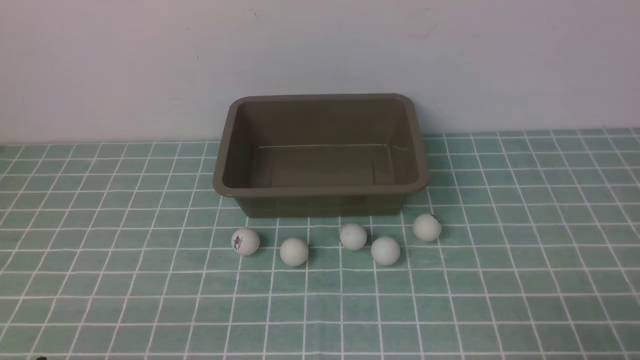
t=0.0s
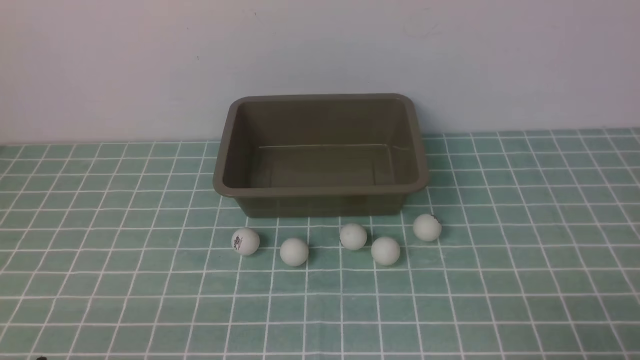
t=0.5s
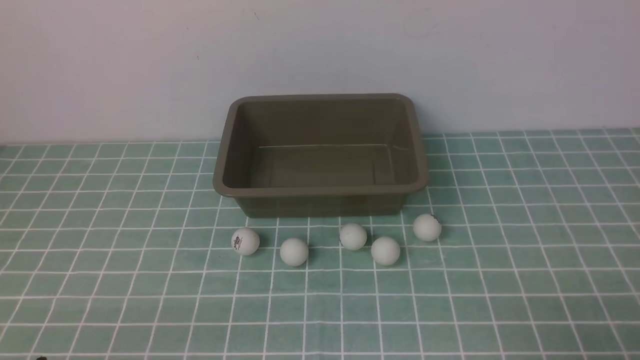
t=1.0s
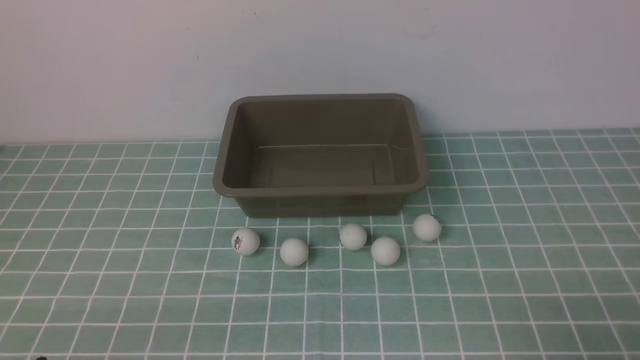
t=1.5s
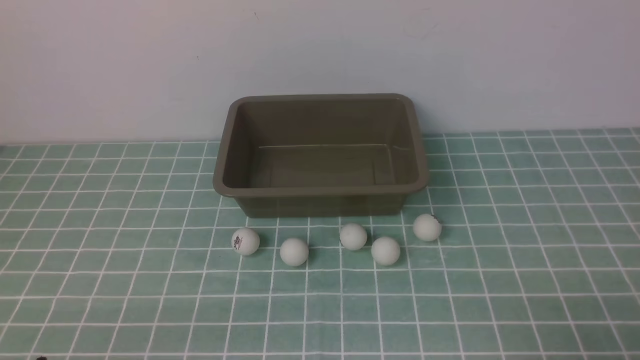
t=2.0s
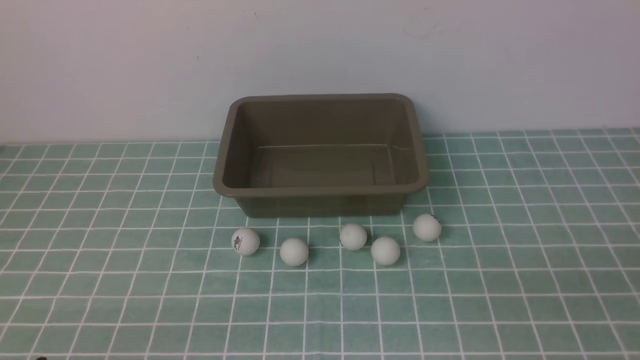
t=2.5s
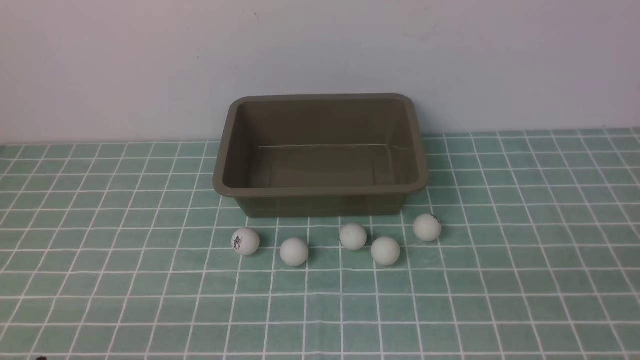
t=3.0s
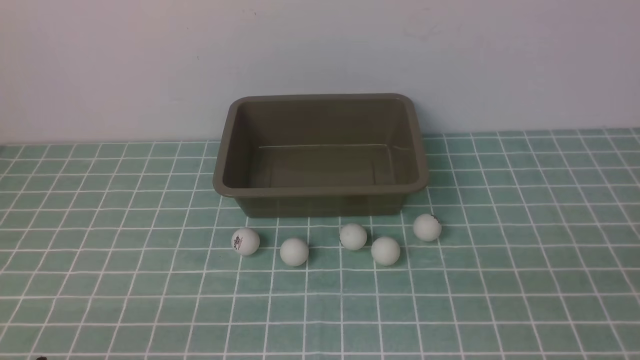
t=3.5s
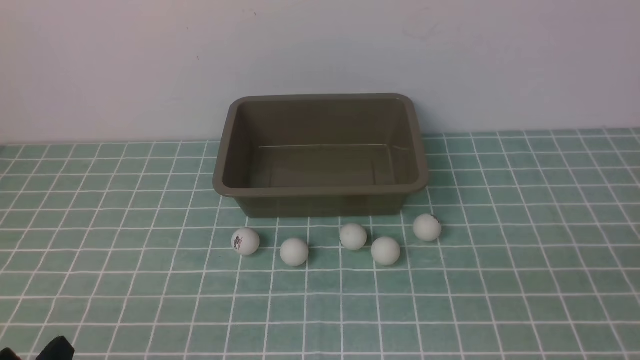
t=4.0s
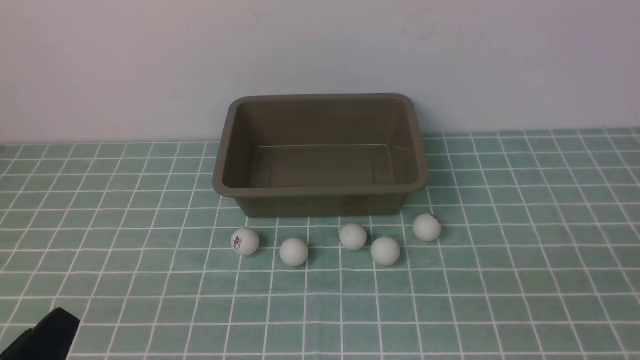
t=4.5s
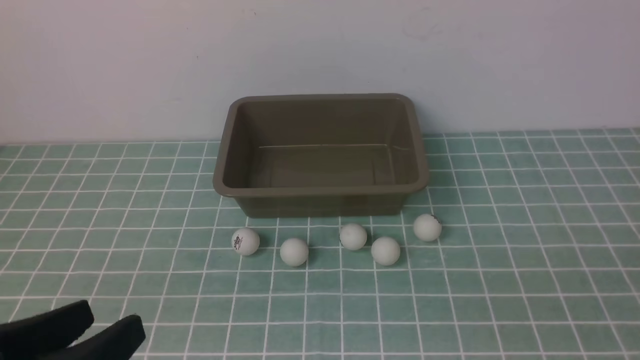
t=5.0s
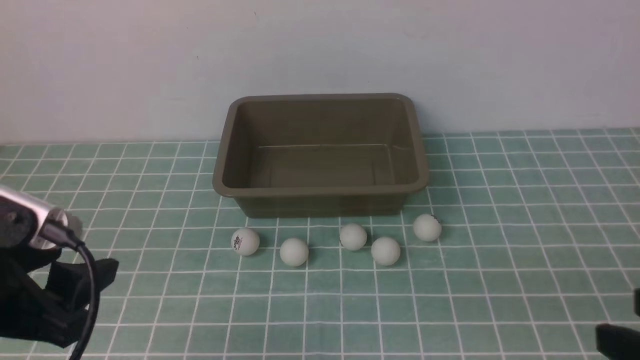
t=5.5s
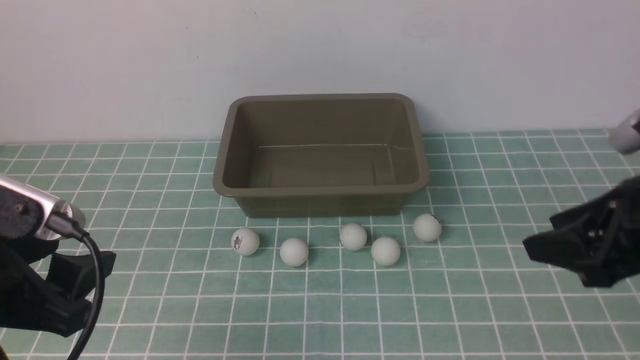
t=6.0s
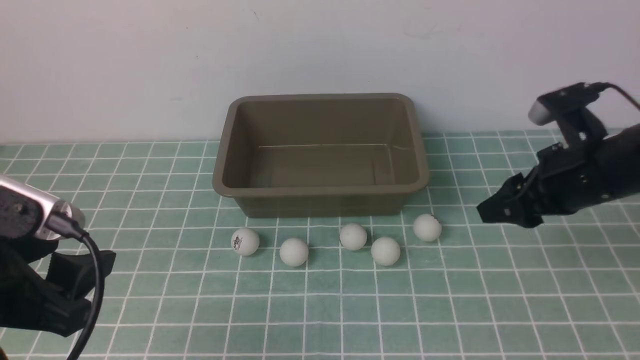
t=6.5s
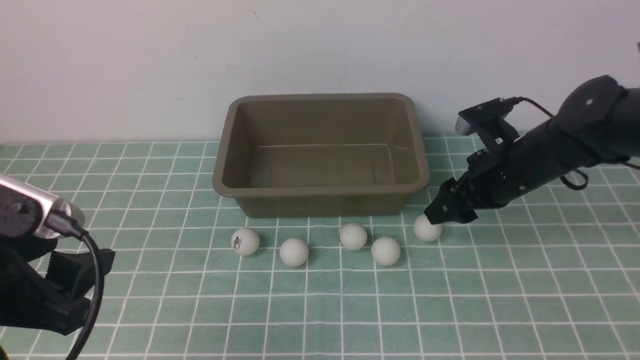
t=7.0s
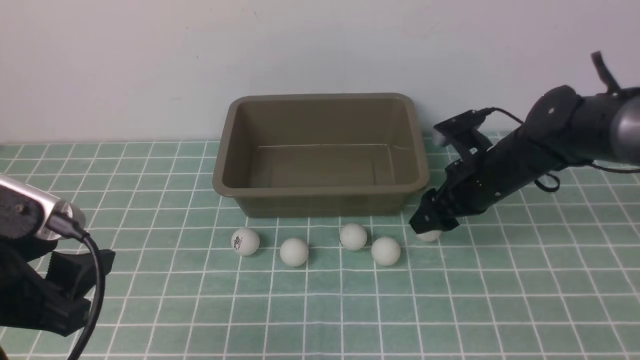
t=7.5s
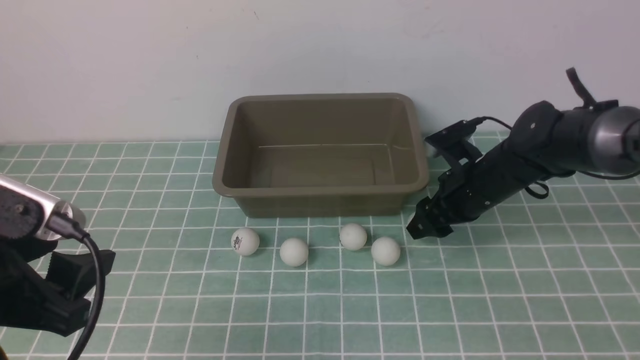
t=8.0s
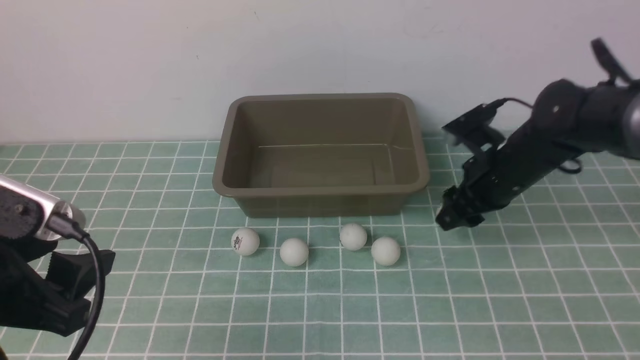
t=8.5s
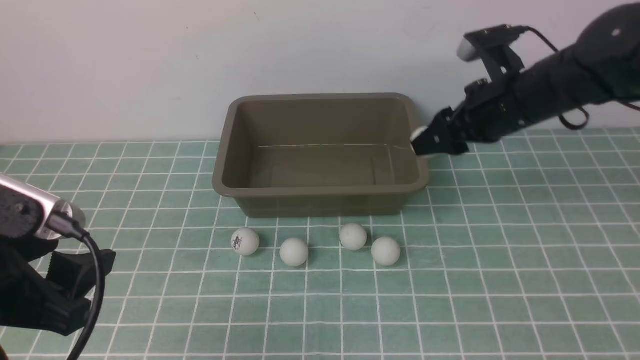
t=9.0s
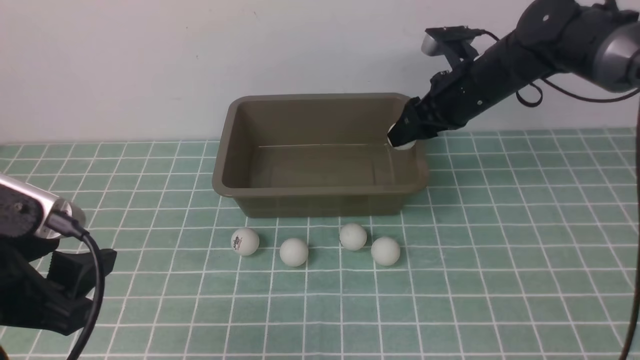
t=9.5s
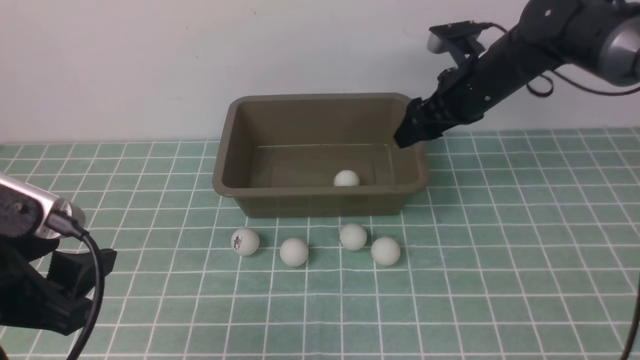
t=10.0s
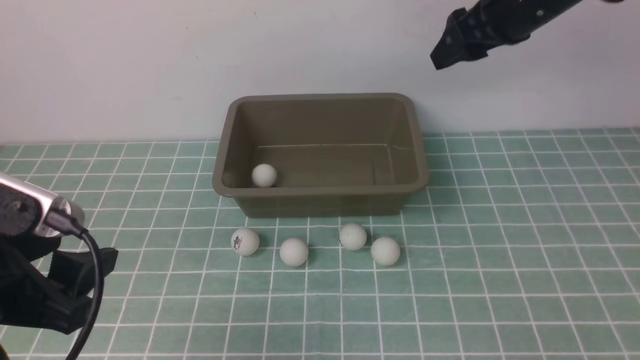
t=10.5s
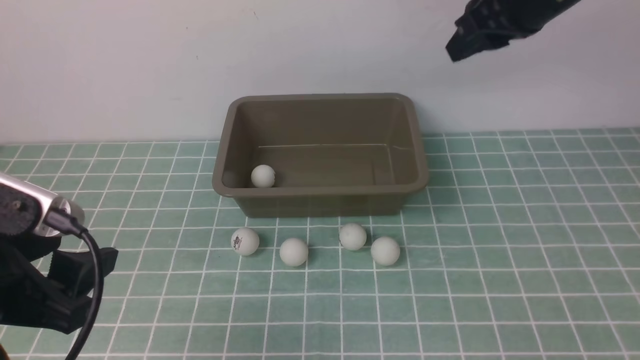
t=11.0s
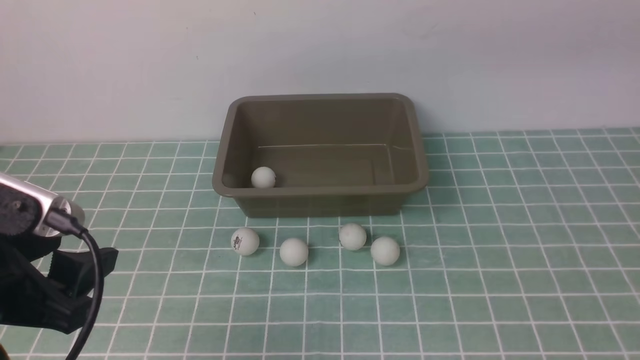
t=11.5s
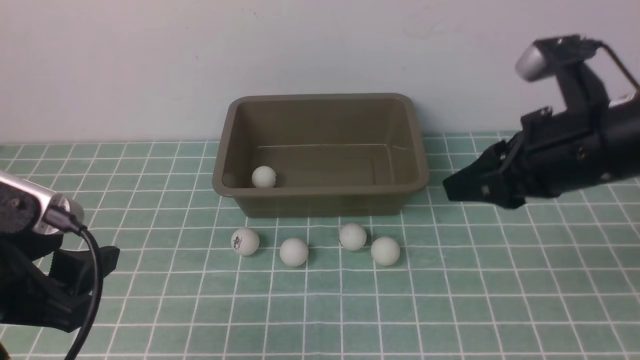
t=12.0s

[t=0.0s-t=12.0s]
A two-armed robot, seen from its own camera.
Step, t=0.0s to t=8.5s: use the right arm to clamp the table tennis ball closest to it.
Step, t=9.0s to t=9.5s: use the right arm to put the table tennis ball into the box.
t=0.0s to t=2.0s: Both grippers stay put.
t=4.0s to t=6.0s: The left gripper moves upward and forward, about 15 cm. The right gripper moves forward, some 20 cm.
t=6.0s to t=8.0s: The right gripper moves forward and downward, about 25 cm.
t=8.0s to t=10.0s: The right gripper moves upward, approximately 15 cm.
t=10.0s to t=12.0s: The right gripper shifts some 15 cm backward, and closes its fingers.

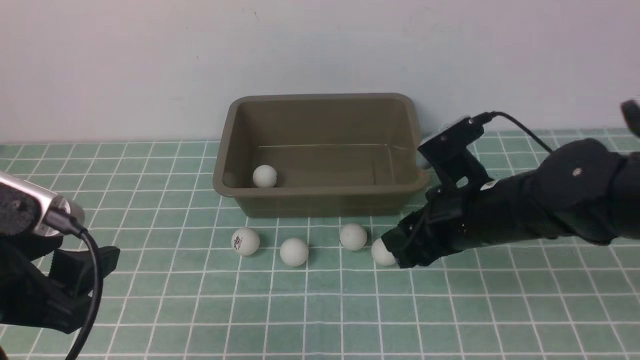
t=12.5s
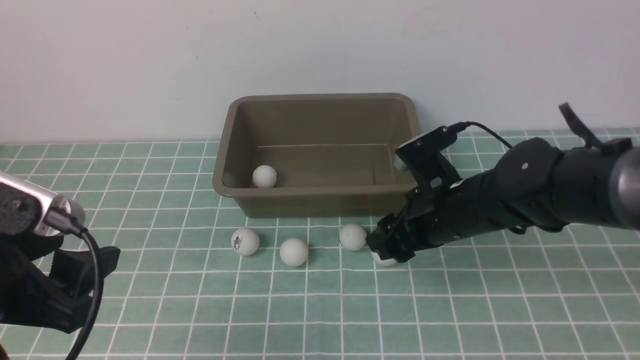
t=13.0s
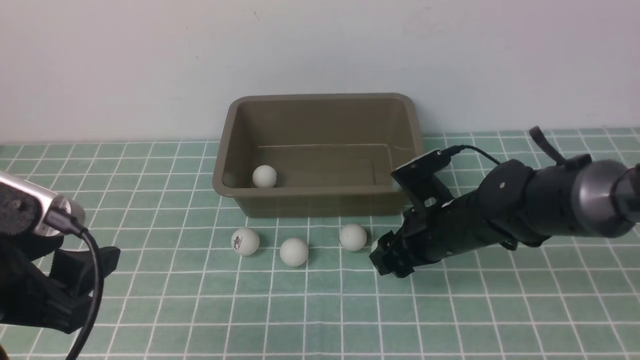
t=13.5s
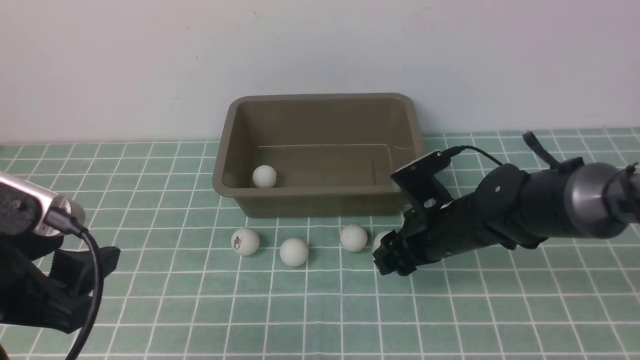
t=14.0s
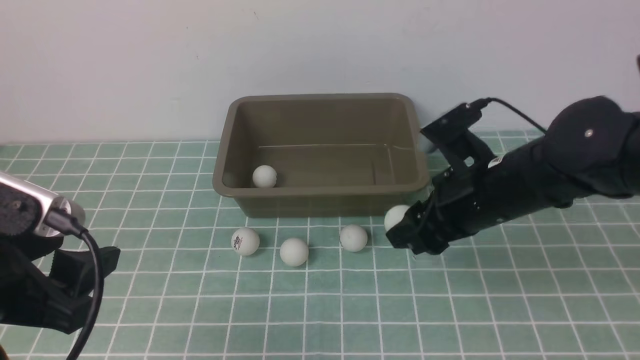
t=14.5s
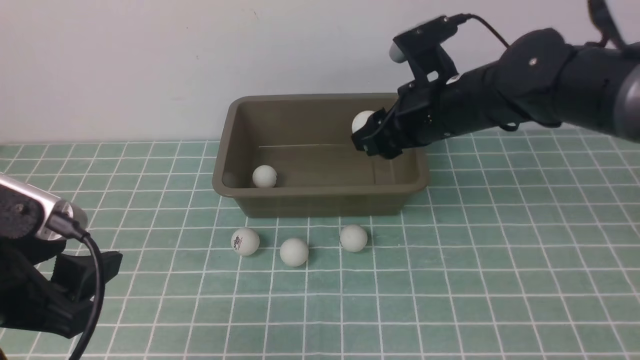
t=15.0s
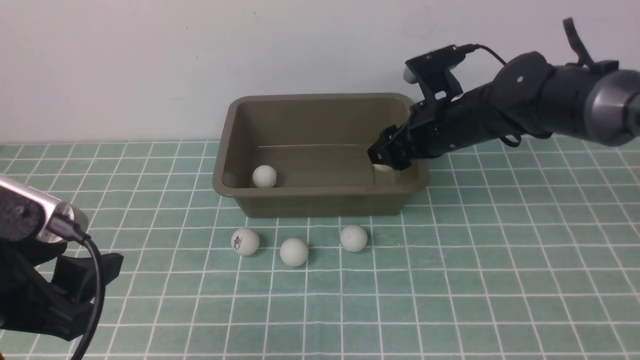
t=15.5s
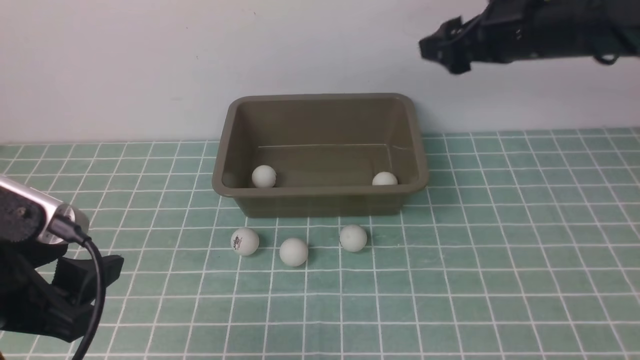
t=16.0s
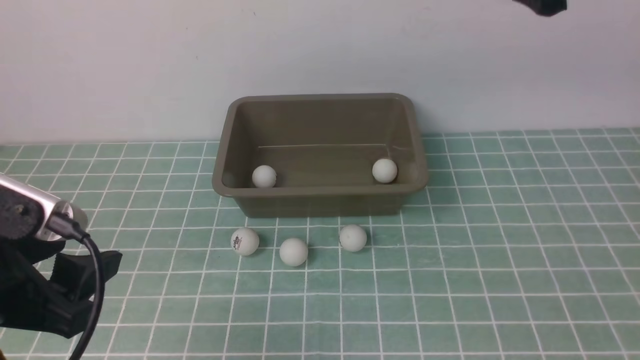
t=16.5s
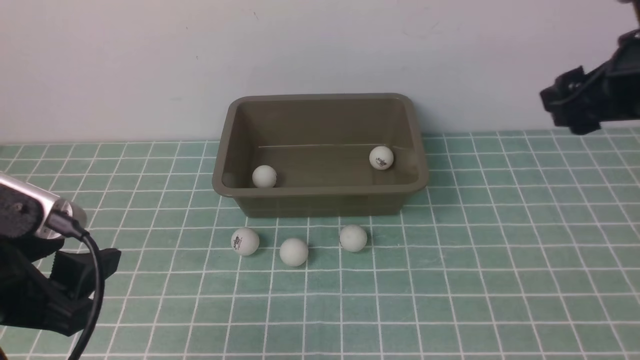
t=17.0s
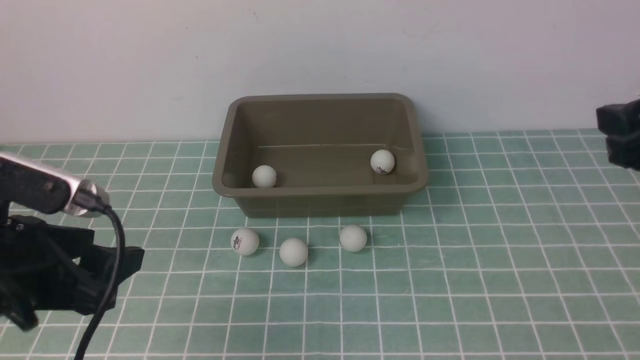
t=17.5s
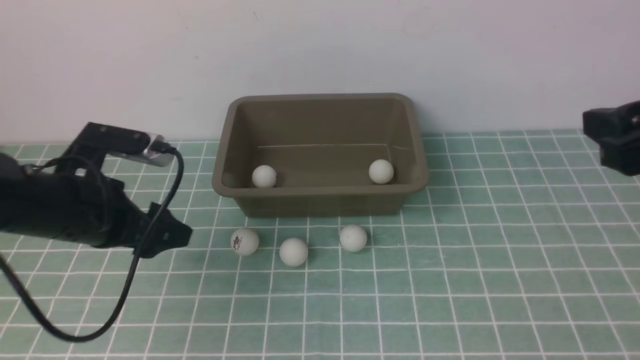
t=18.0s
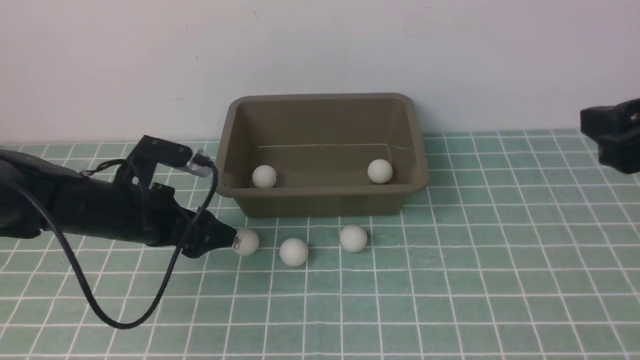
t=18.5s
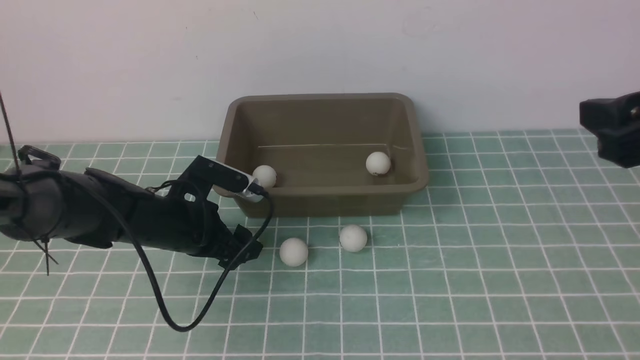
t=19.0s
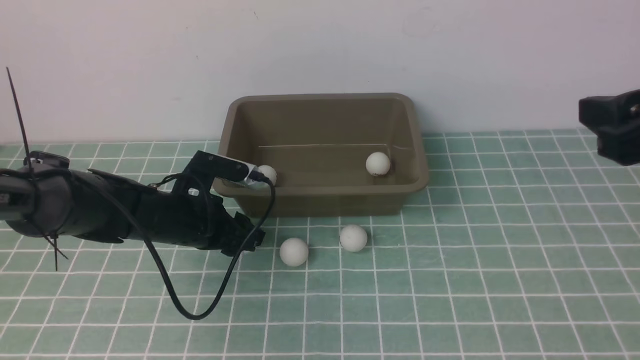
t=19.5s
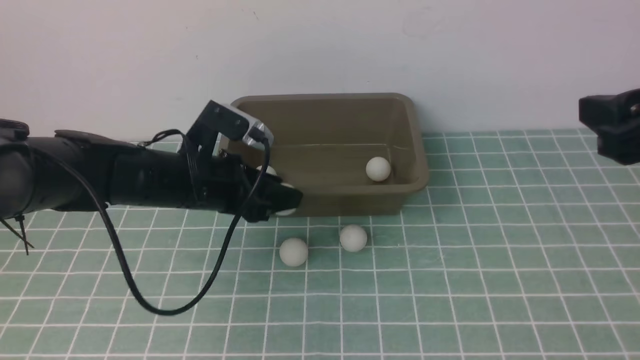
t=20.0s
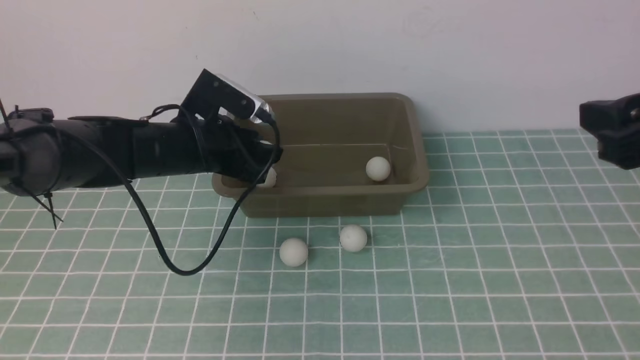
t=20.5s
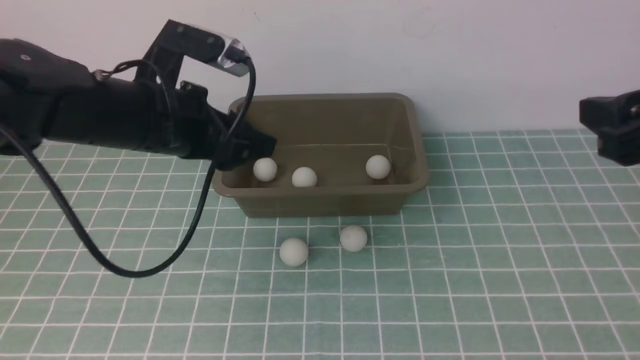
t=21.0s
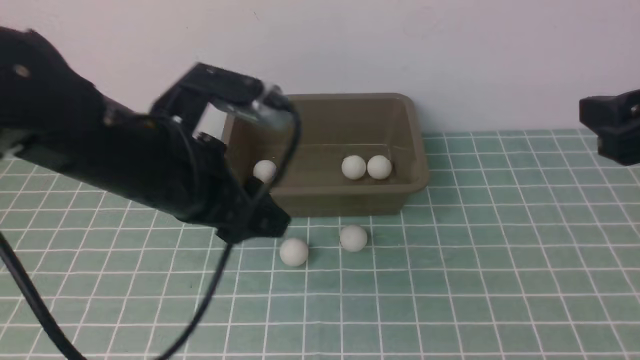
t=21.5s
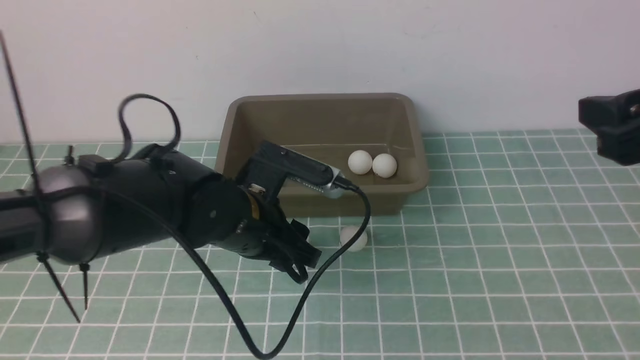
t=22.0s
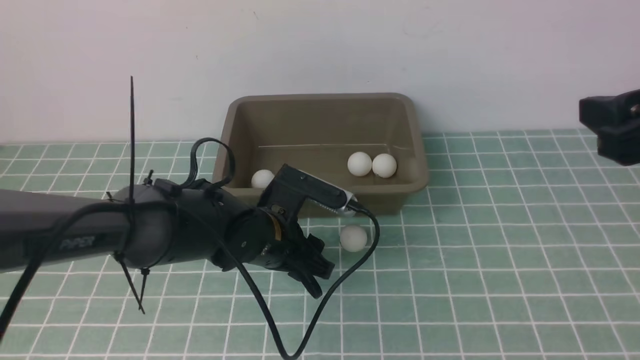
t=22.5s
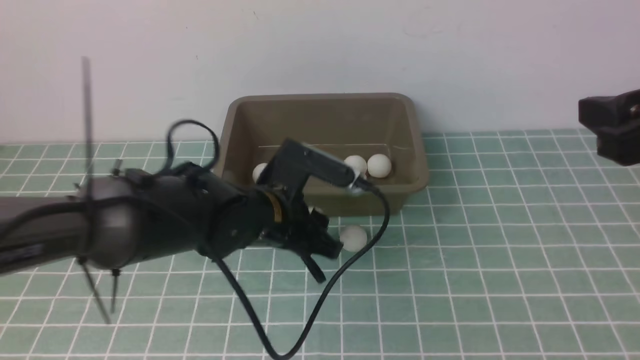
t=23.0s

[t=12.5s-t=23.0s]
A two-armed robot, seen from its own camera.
Step, t=14.5s to t=15.5s: use the right arm to put the table tennis ball into the box.
Step, t=16.0s to t=19.5s: use the left arm to clamp the table tennis ball closest to it.
Step, t=20.0s to t=20.5s: use the left arm to put the table tennis ball into the box.
Step, t=21.0s to t=23.0s: use the left arm to clamp the table tennis ball closest to it.
t=14.5s to t=16.5s: The right gripper heads upward and to the right, covering about 20 cm, and opens up.
t=16.5s to t=19.0s: The right gripper shifts roughly 10 cm backward and downward. The left gripper goes some 25 cm forward and downward.
t=19.0s to t=21.0s: The left gripper goes about 15 cm upward, and closes and opens again.
t=21.0s to t=23.0s: The left gripper moves to the right and downward, some 15 cm, and closes up.
